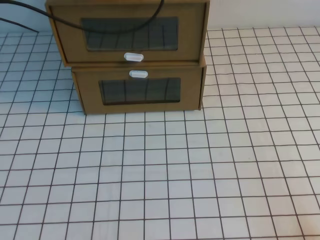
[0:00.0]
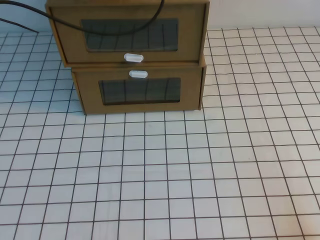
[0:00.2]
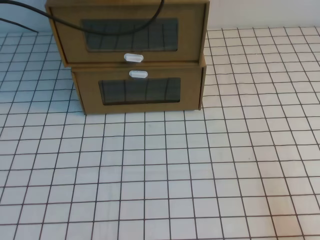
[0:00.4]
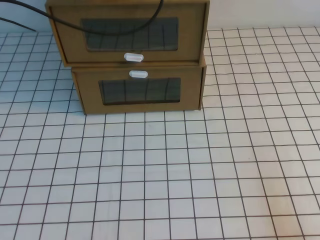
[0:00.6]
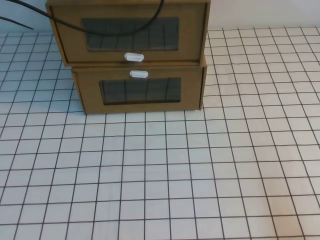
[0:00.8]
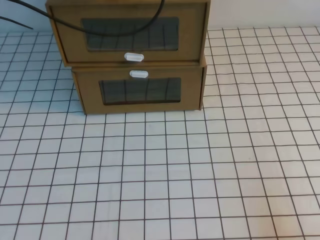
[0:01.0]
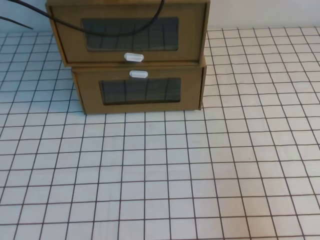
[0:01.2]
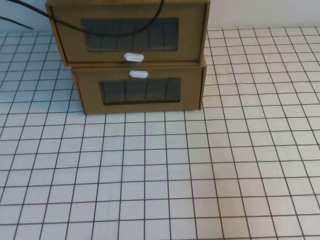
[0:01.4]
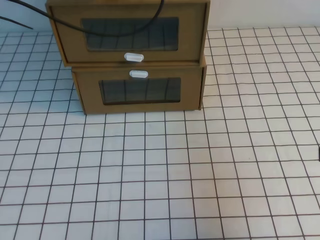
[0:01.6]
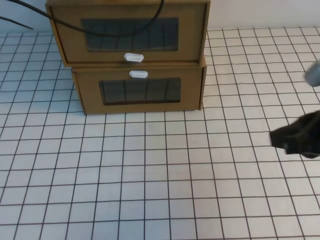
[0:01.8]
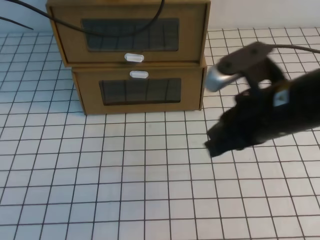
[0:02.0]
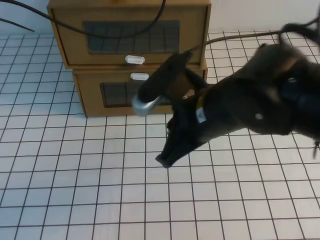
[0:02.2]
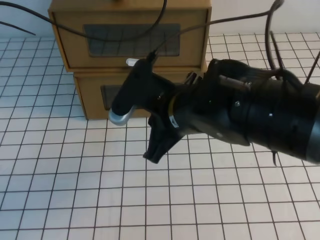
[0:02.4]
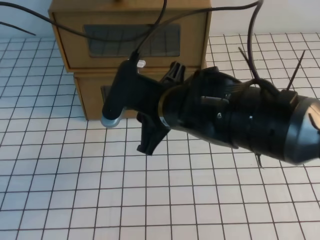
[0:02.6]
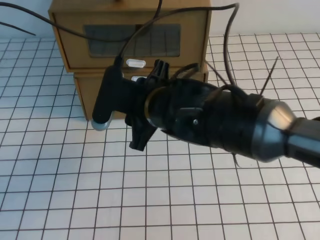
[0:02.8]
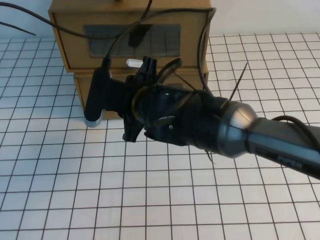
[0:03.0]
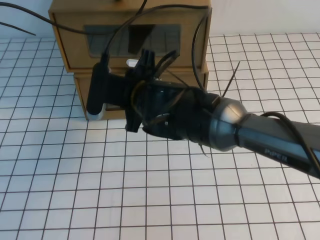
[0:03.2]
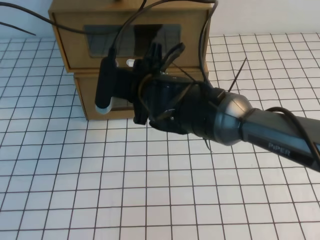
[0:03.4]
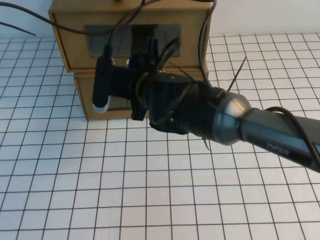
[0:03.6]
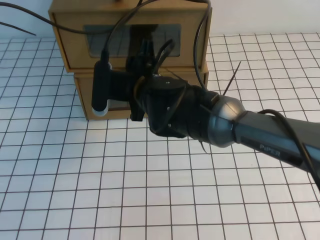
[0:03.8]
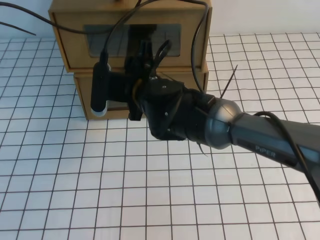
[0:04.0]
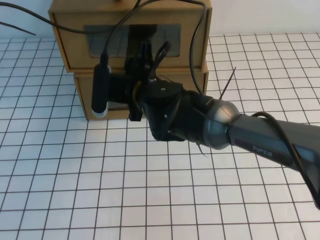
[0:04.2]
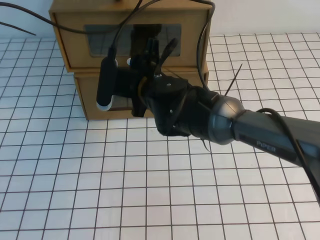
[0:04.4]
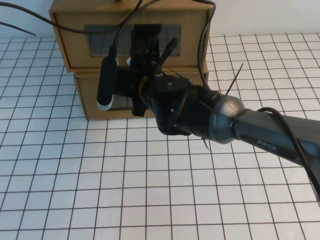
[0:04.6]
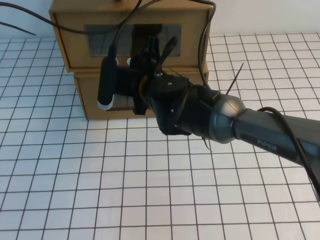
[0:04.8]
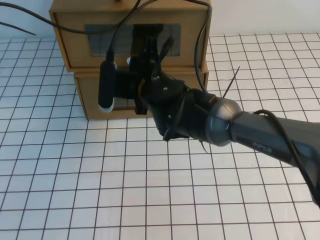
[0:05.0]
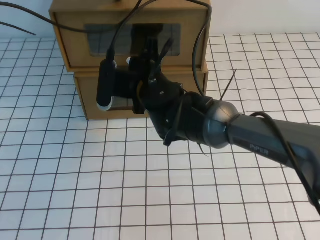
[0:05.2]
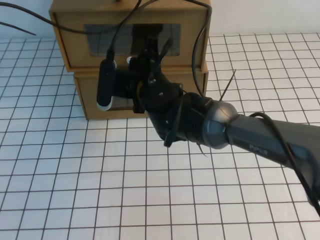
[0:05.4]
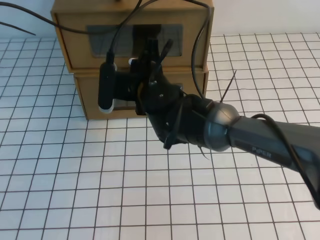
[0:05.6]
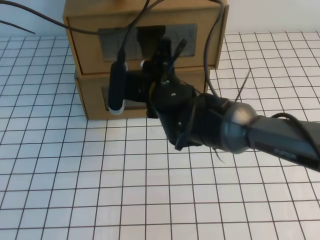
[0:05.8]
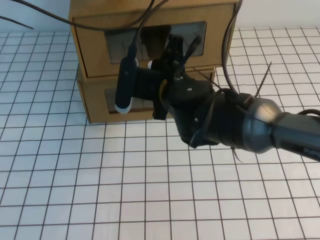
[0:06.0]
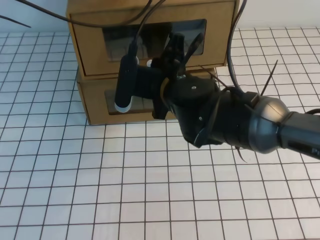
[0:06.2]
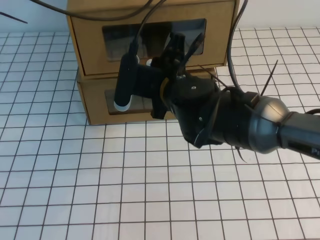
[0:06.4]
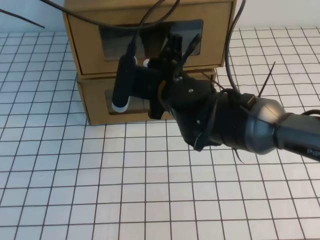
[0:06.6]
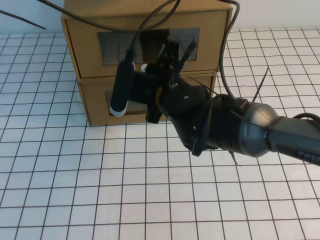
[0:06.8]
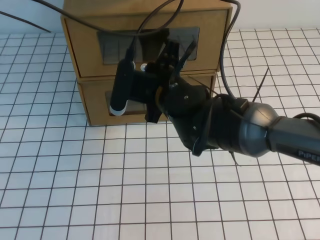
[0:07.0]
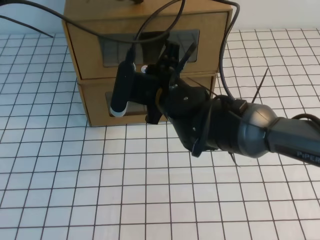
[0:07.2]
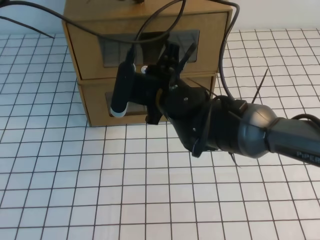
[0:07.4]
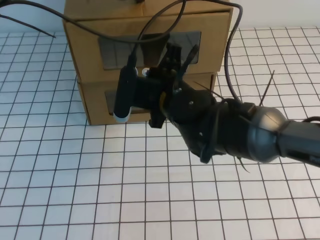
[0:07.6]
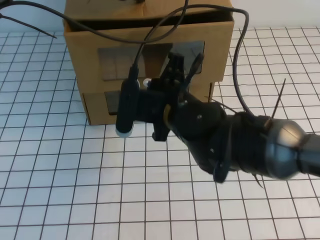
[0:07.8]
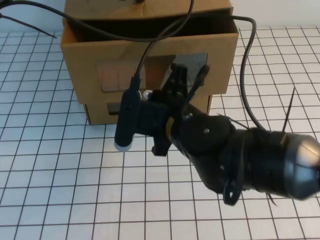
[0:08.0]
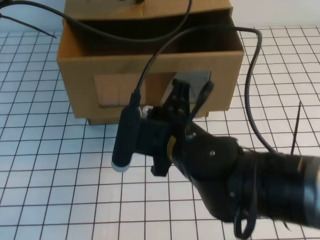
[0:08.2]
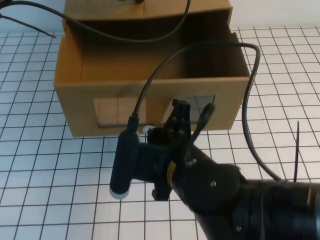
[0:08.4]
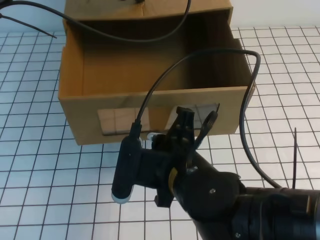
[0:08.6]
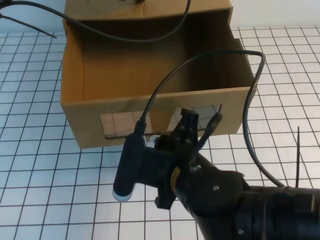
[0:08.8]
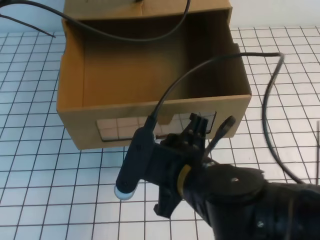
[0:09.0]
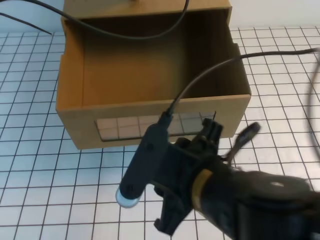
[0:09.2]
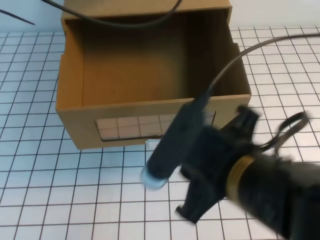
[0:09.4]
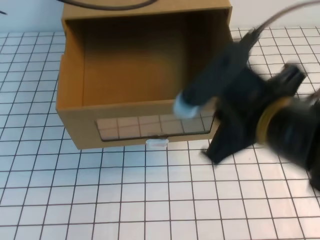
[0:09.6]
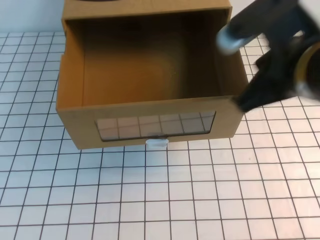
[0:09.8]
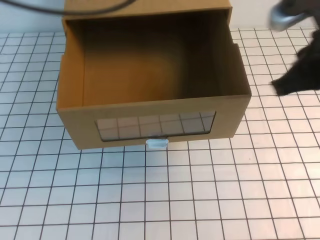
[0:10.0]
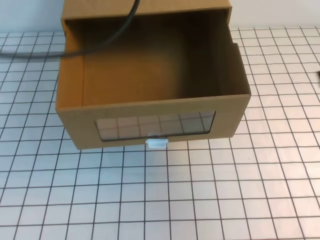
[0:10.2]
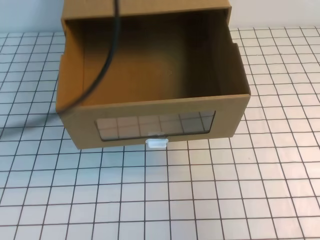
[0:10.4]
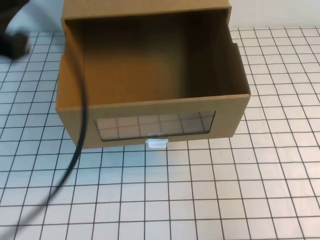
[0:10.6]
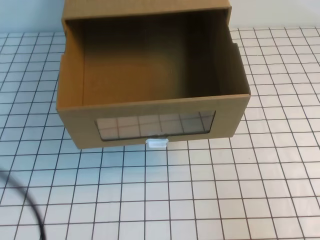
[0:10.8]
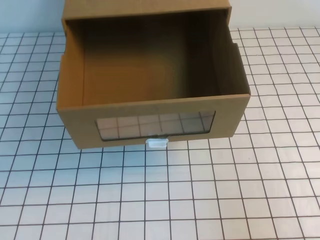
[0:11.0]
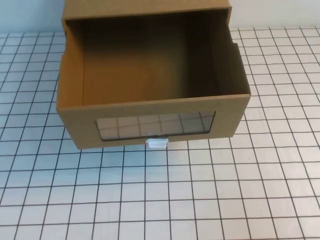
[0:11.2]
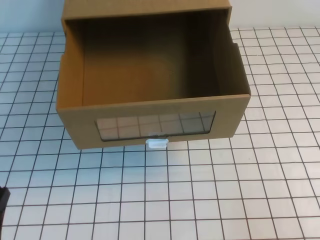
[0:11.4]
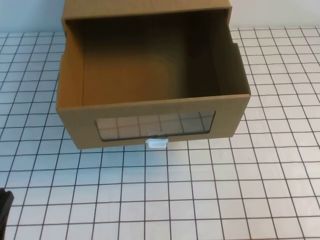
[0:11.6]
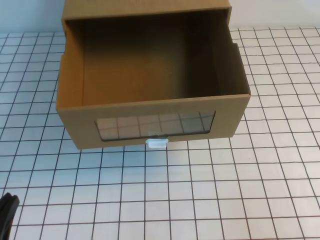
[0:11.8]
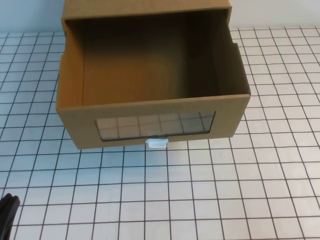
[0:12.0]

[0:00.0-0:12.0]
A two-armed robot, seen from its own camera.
Task of the whole recording: open the shoebox on the white tablecloth.
0:00.0 to 0:01.6: The right gripper moves upward and forward, some 15 cm.
0:01.6 to 0:03.0: The right gripper goes roughly 35 cm to the left and forward, and opens up.
0:03.0 to 0:04.4: The right gripper goes roughly 5 cm forward.
0:04.4 to 0:06.0: The right gripper closes its fingers.
0:06.0 to 0:07.6: The grippers move only a little.
0:07.6 to 0:09.0: The right gripper goes approximately 15 cm backward, and opens up.
0:09.0 to 0:10.4: The right gripper heads to the right and upward, covering roughly 25 cm, and closes. The left gripper shifts roughly 25 cm backward, upward and to the left.
0:10.4 to 0:12.0: The right gripper is displaced backward and downward by about 15 cm. The left gripper moves downward and backward, some 35 cm.

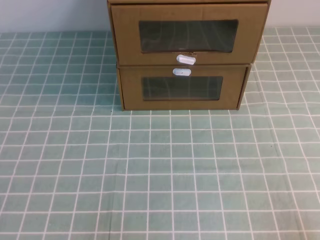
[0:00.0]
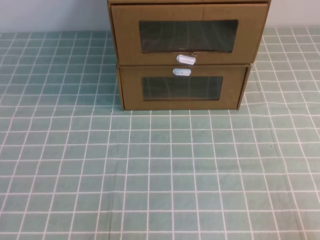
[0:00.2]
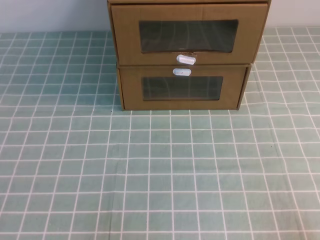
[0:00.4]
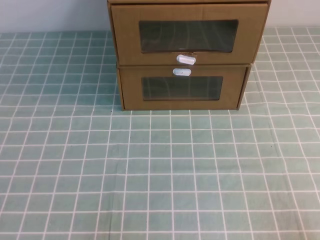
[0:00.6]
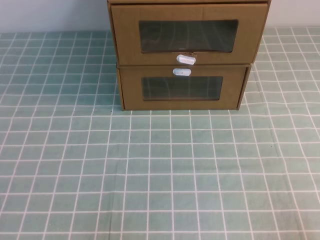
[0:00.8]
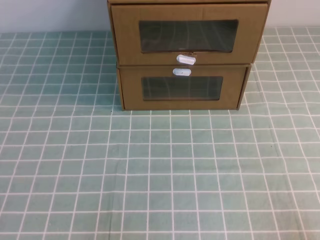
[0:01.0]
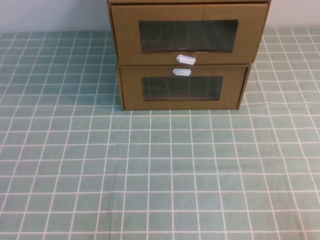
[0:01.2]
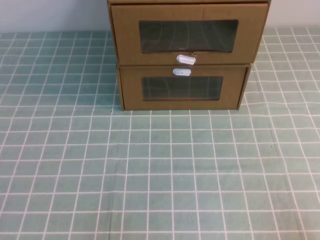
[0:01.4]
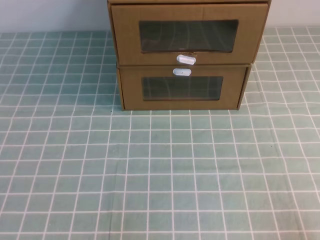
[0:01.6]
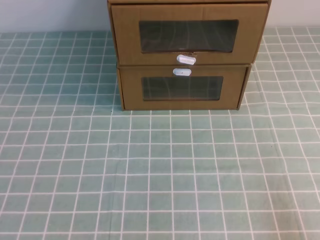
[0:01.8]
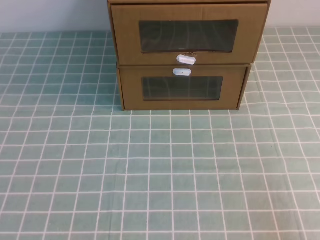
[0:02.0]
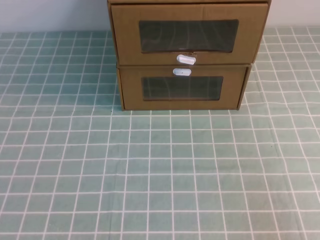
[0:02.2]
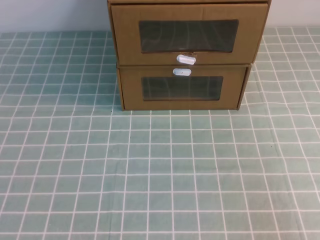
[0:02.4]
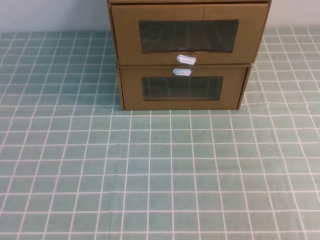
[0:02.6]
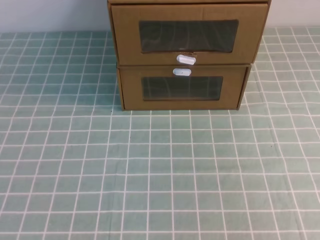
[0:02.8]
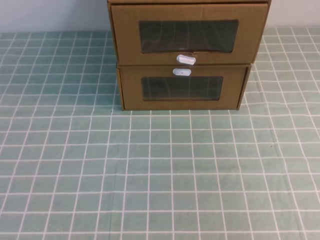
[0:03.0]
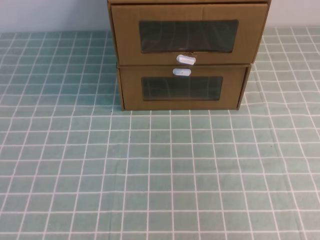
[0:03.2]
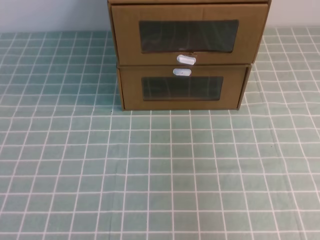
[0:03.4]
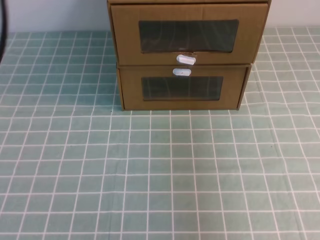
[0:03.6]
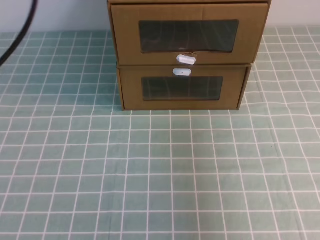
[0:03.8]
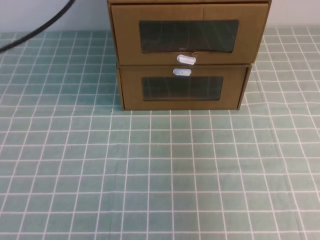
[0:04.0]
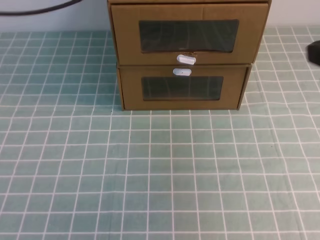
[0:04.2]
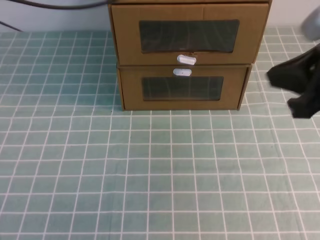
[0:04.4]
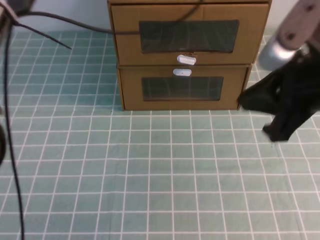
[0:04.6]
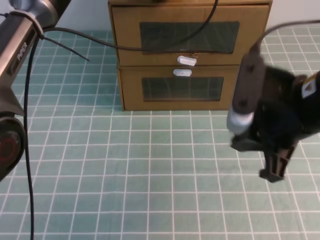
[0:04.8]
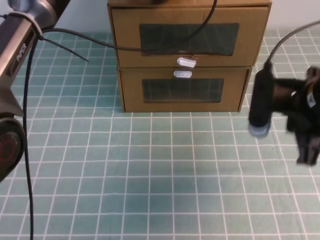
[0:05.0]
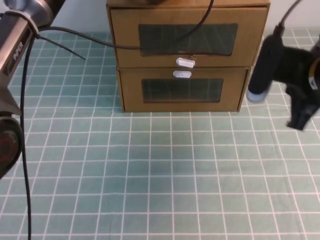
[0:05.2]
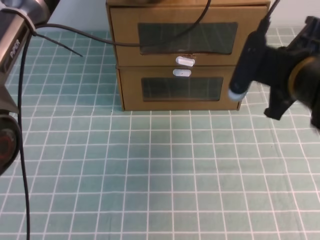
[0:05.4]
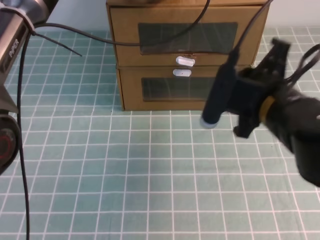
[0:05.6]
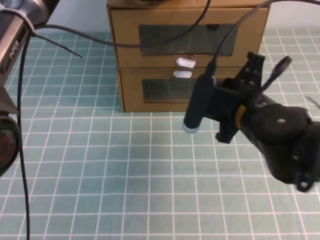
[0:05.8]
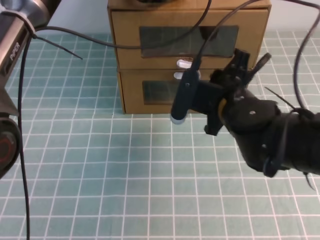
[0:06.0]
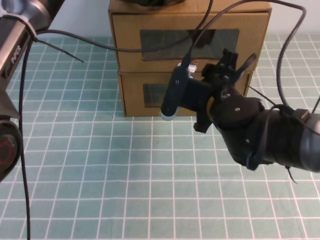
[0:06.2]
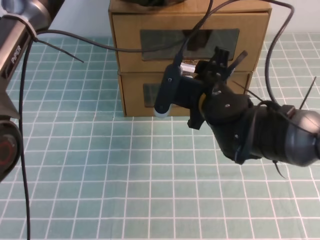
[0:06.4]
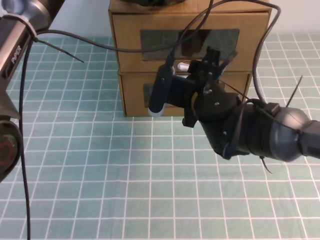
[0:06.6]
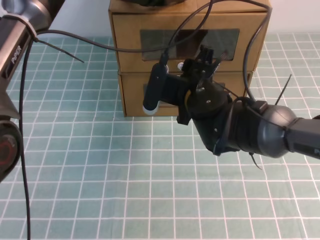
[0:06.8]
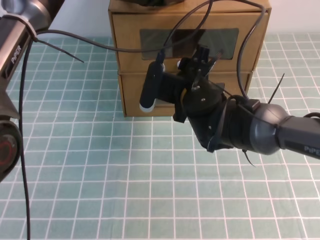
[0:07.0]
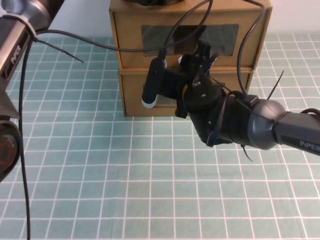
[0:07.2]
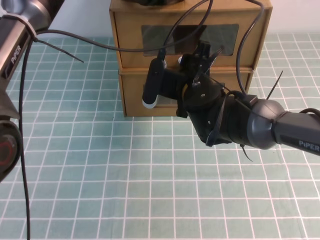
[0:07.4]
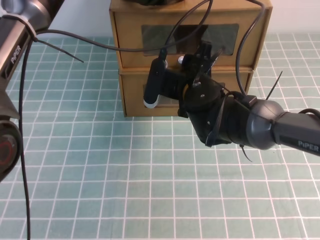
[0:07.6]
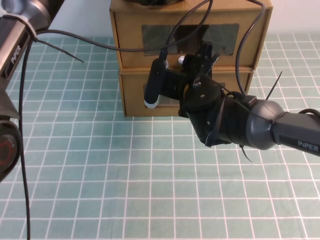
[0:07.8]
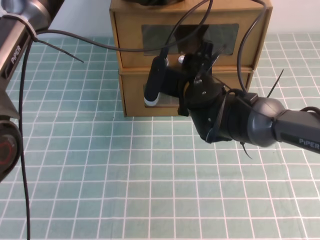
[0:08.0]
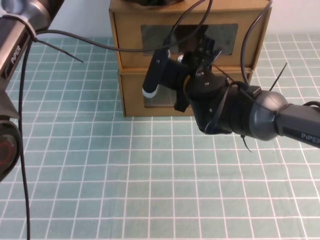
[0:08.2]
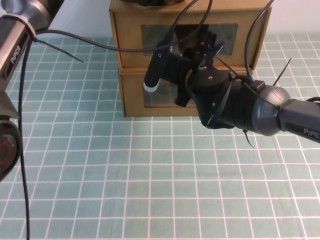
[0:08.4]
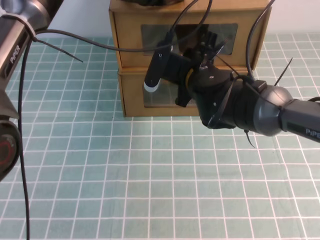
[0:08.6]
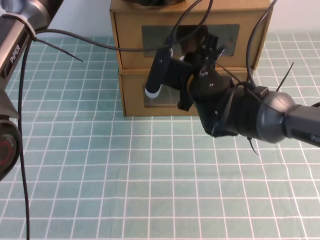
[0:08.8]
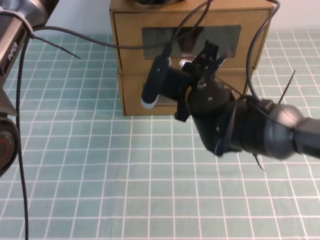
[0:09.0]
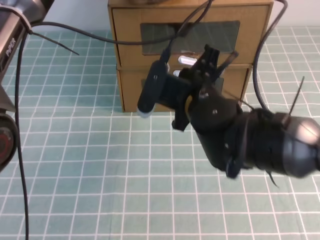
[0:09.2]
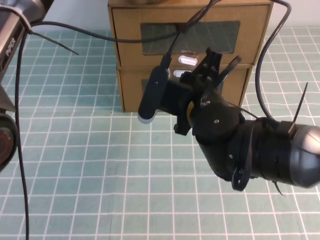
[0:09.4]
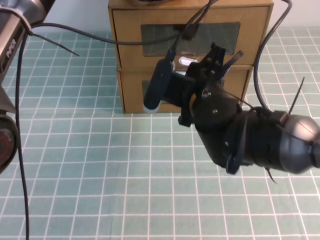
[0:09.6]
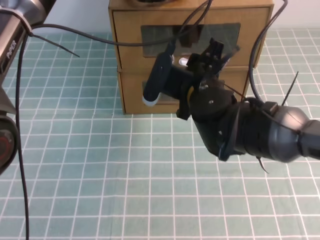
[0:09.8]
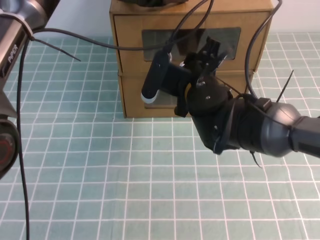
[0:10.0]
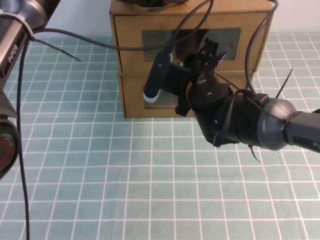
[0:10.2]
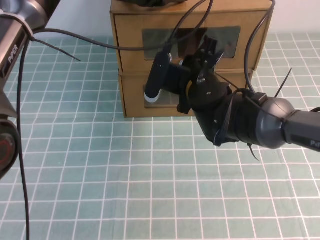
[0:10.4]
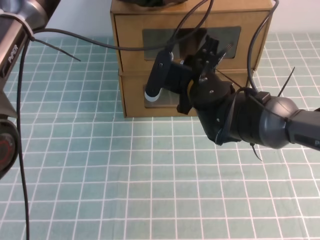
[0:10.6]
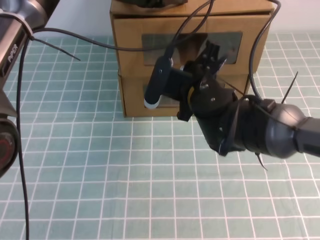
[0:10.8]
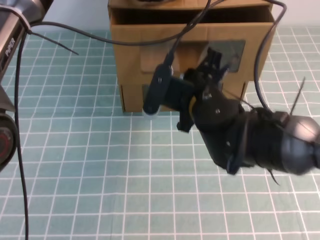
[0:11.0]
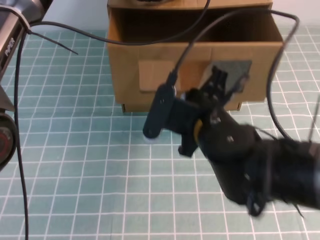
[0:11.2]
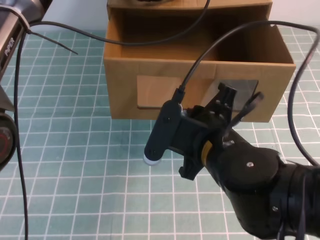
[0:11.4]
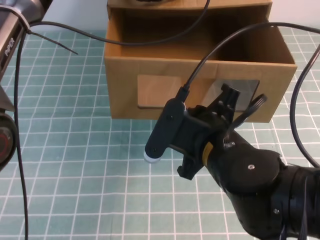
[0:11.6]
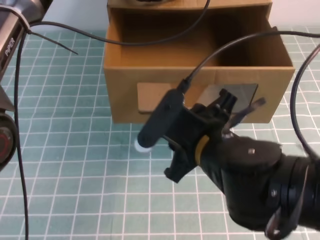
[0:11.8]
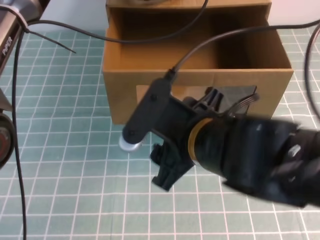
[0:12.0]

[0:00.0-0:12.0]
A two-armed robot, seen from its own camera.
Task of the whole recording: open the shoebox on the cyan tablecloth.
0:03.0 to 0:04.4: The left gripper heads forward and to the right, covering about 40 cm. Meanwhile the right gripper shifts roughly 25 cm forward and to the left.
0:04.4 to 0:06.0: The left gripper heads downward and to the right, covering about 10 cm. Meanwhile the right gripper goes approximately 20 cm downward, to the left and forward, and opens its fingers.
0:06.0 to 0:07.6: The right gripper travels forward by about 5 cm, and opens.
0:07.6 to 0:09.0: The right gripper closes its fingers.
0:09.0 to 0:10.4: The grippers make only small movements.
0:10.4 to 0:12.0: The right gripper is displaced backward by some 15 cm, and opens its fingers.
